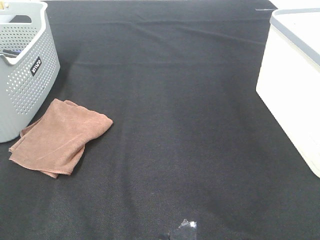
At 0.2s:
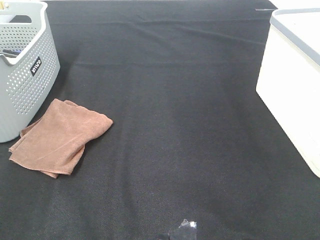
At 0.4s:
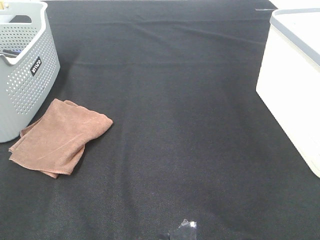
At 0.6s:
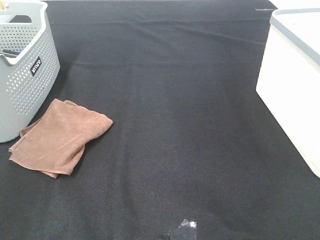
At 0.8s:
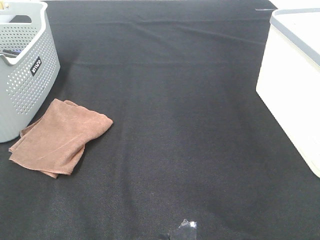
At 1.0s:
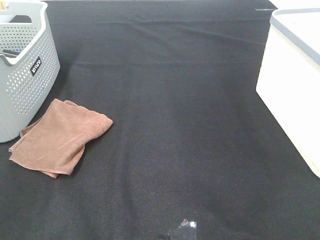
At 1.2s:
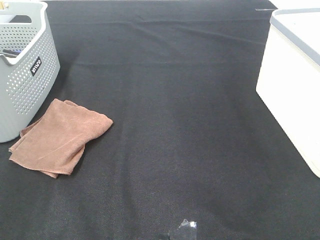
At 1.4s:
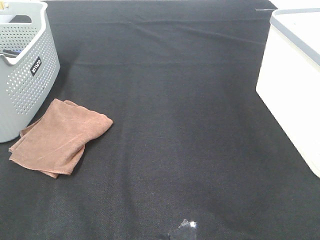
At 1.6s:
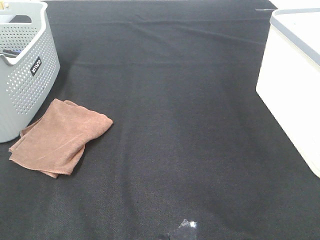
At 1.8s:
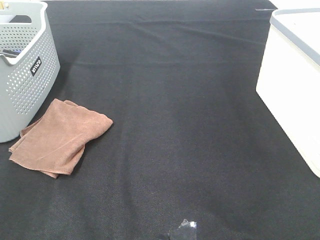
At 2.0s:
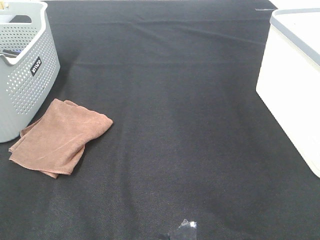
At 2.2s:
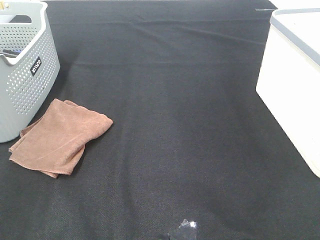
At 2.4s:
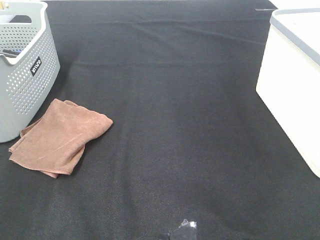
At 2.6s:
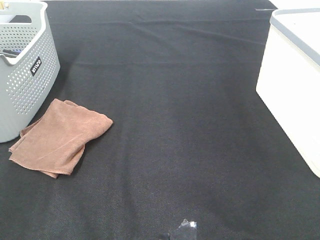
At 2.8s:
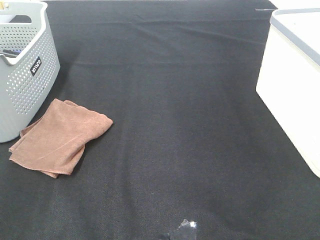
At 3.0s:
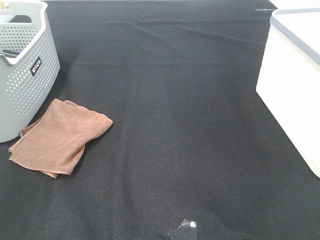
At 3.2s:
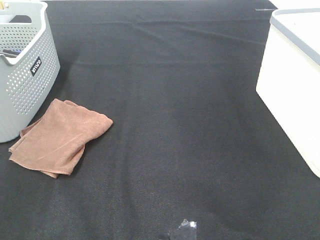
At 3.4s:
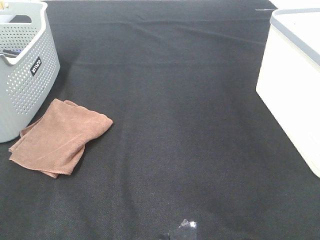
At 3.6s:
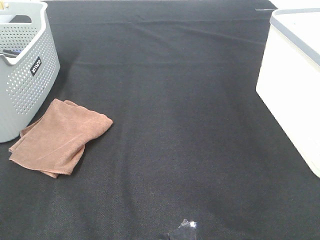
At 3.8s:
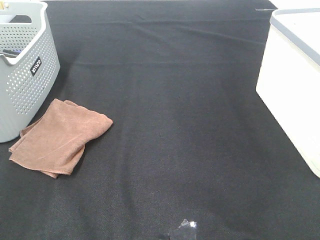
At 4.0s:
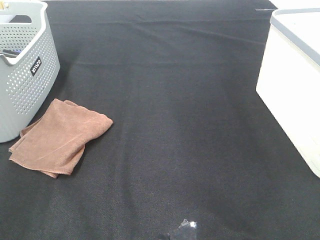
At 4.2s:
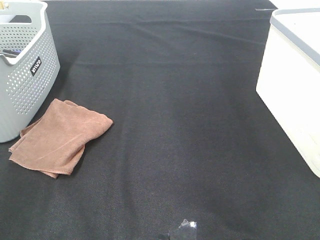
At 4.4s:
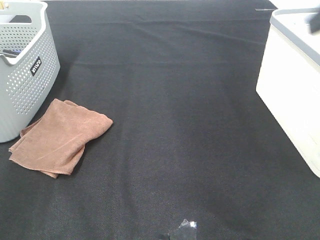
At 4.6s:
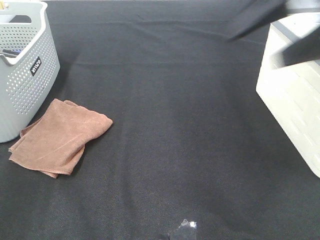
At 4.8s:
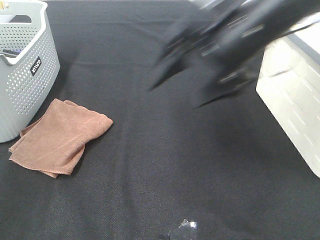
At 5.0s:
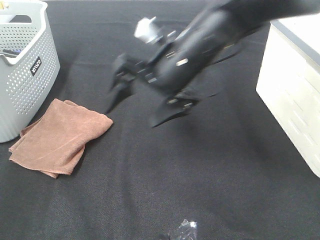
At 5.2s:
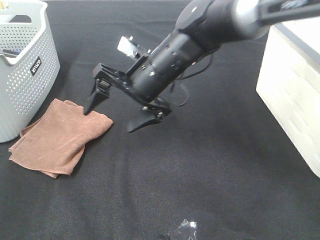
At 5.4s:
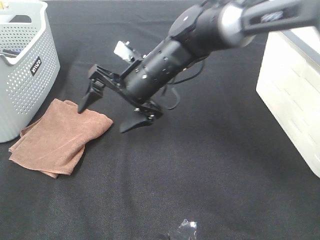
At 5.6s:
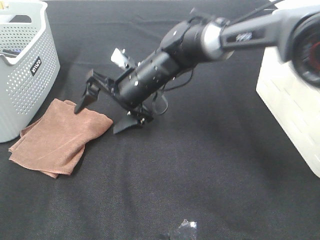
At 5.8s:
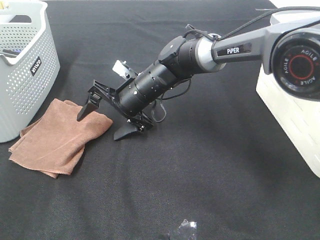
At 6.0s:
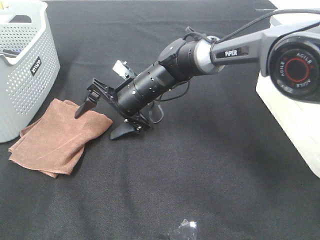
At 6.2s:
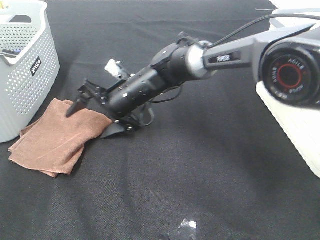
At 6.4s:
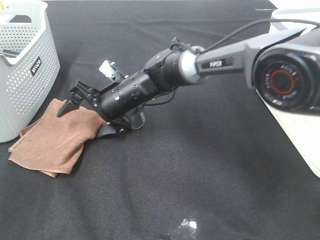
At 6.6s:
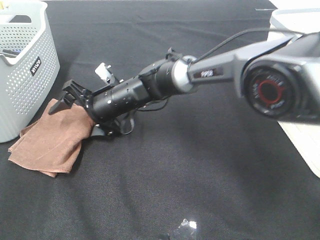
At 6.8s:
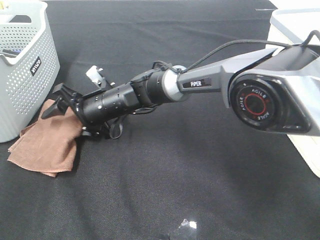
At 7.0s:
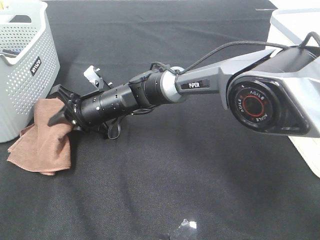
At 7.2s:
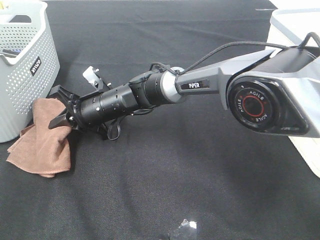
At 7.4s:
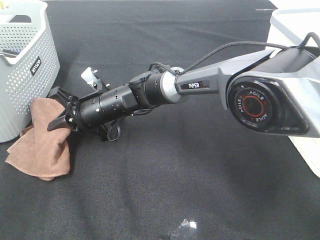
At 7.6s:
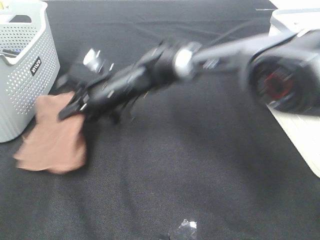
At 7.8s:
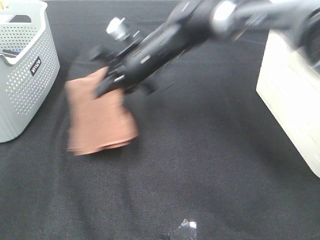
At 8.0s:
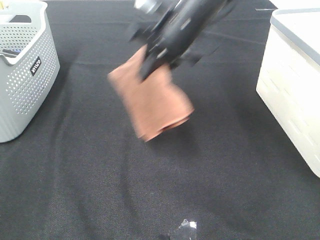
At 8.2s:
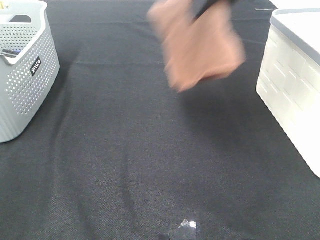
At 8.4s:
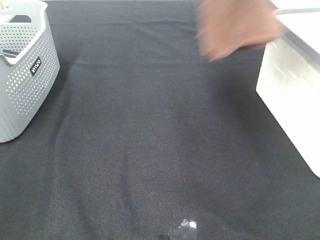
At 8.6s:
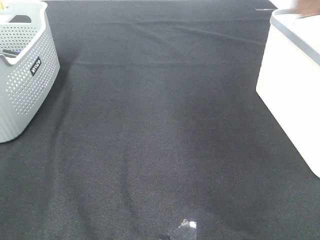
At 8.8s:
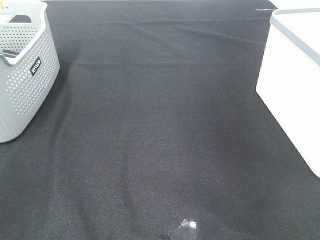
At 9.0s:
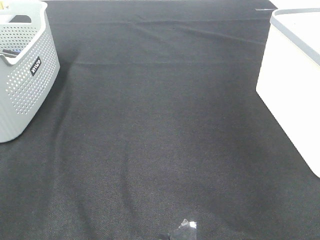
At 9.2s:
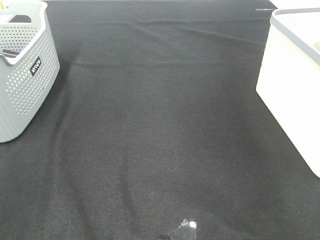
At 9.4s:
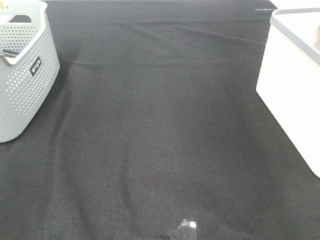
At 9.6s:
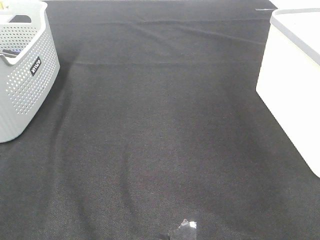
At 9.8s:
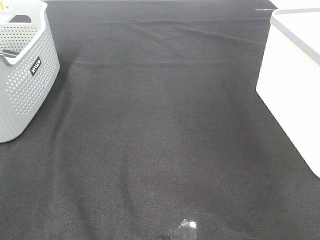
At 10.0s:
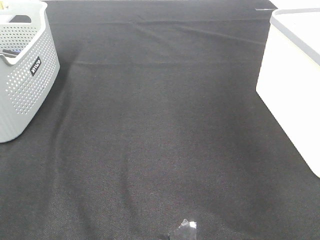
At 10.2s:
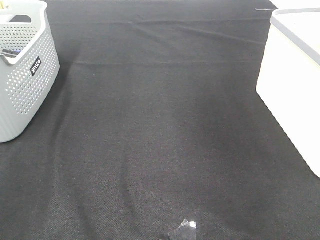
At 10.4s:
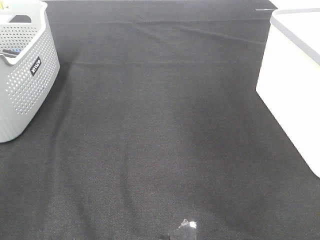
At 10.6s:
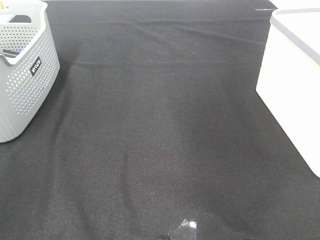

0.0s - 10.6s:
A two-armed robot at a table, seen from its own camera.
Step, 0.0s - 7.0s: Right hand: grab the folded brown towel.
Step, 7.2s - 9.4s: Right hand: place the brown towel in right basket.
0.0s - 3.0s: The two grippers keep their place.
3.0s - 4.6s: The right gripper heads forward and to the left, covering approximately 30 cm.
4.6s - 6.0s: The right gripper travels downward, to the left and forward by about 35 cm.
6.0s - 7.6s: The right gripper closes its fingers.
7.6s - 9.0s: The right gripper heads to the right and upward, covering approximately 50 cm.

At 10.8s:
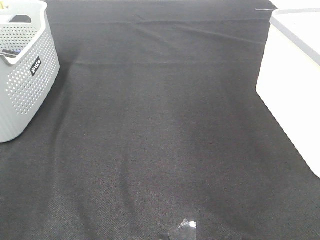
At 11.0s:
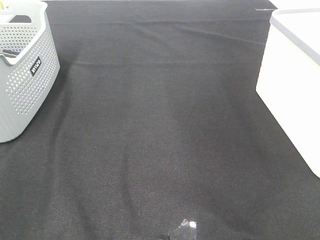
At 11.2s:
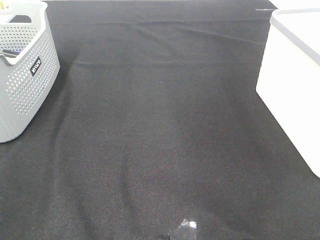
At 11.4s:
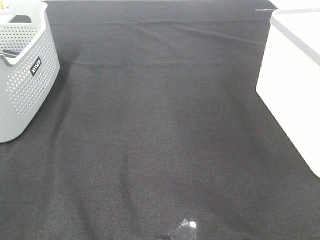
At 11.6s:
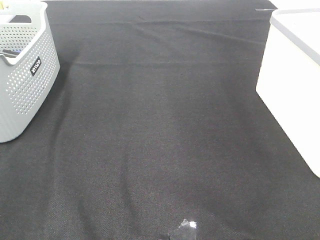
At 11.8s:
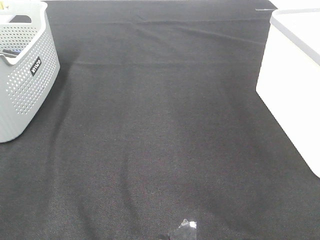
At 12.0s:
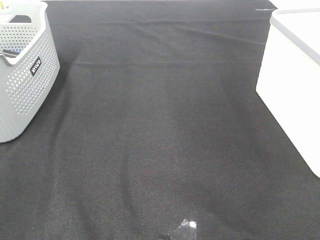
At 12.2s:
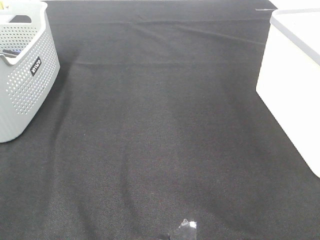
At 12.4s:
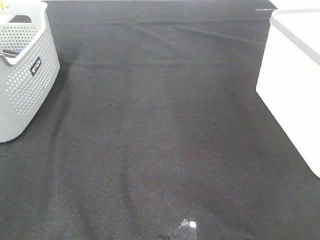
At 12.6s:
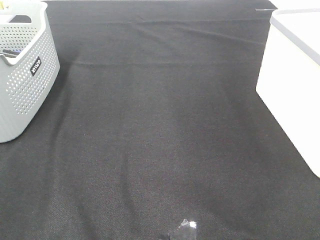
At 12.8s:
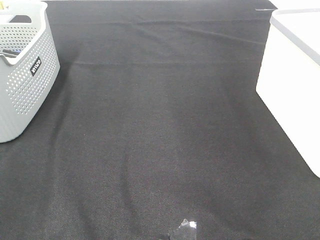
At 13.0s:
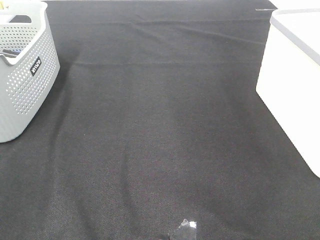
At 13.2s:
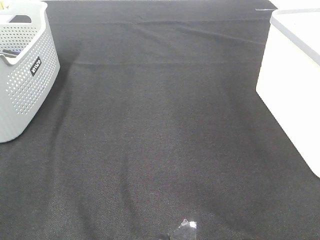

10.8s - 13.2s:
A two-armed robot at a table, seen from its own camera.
12.0s - 13.2s: The two grippers keep their place.

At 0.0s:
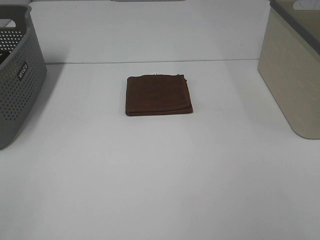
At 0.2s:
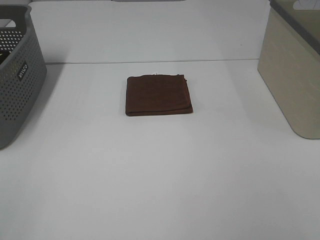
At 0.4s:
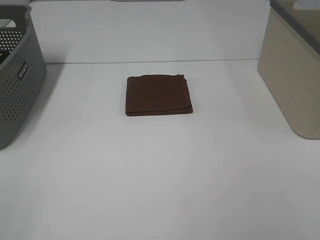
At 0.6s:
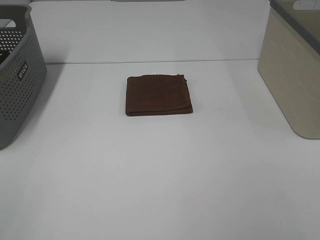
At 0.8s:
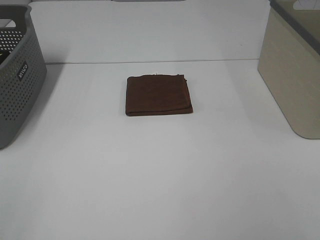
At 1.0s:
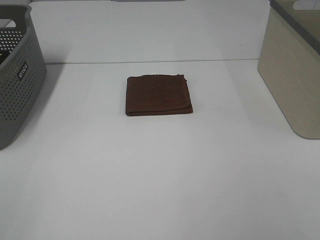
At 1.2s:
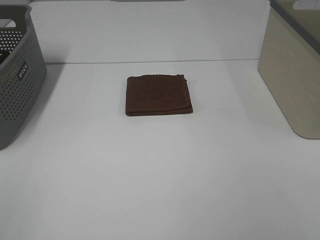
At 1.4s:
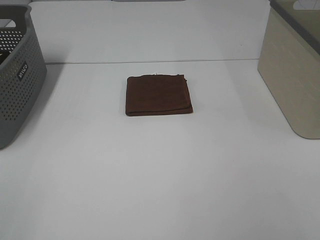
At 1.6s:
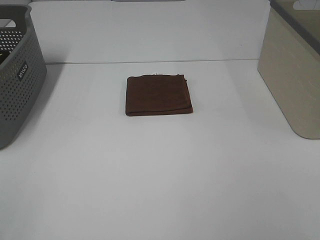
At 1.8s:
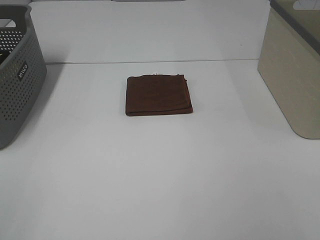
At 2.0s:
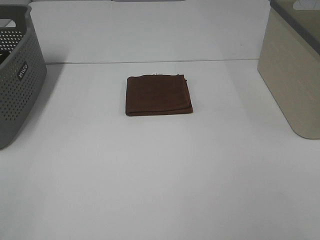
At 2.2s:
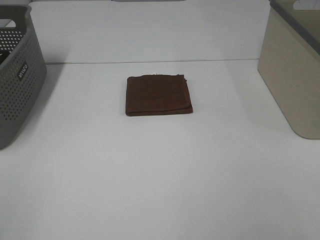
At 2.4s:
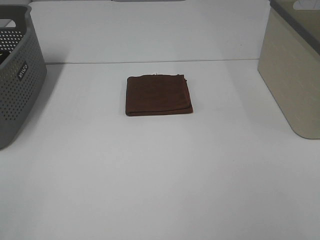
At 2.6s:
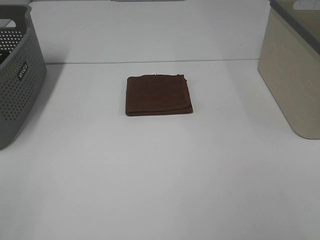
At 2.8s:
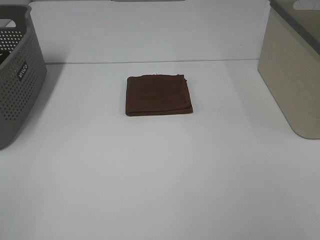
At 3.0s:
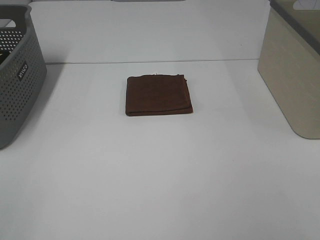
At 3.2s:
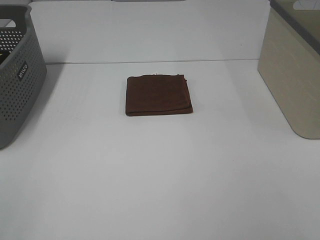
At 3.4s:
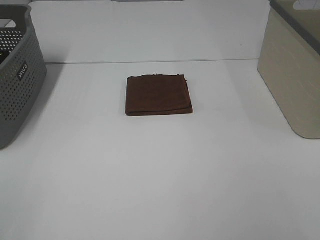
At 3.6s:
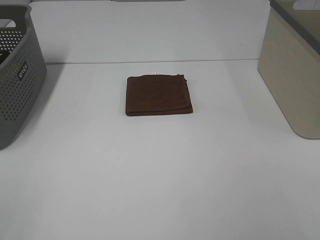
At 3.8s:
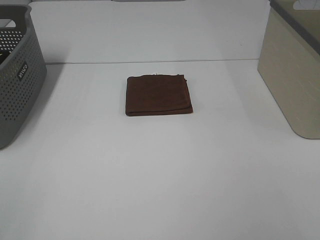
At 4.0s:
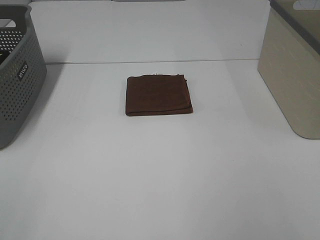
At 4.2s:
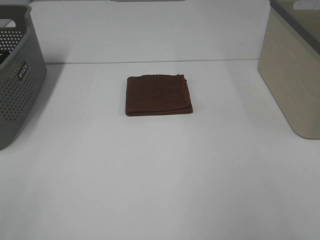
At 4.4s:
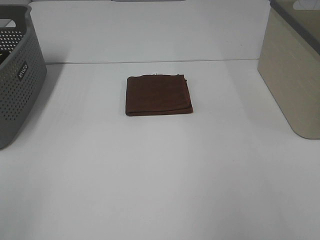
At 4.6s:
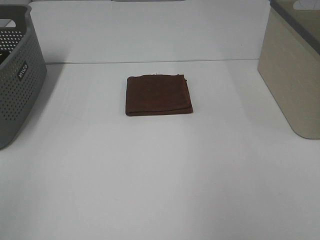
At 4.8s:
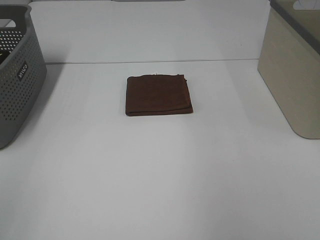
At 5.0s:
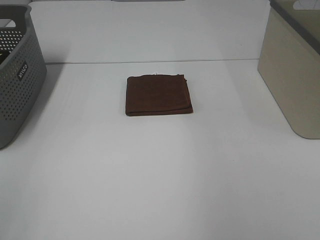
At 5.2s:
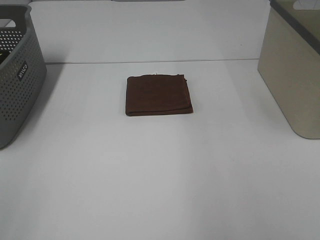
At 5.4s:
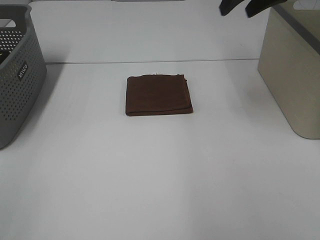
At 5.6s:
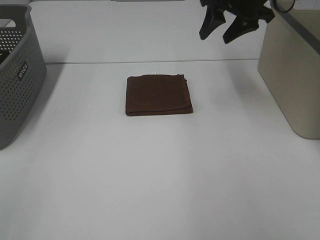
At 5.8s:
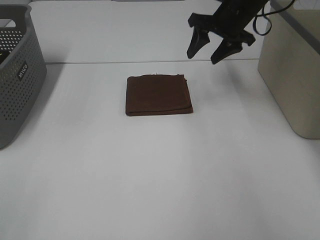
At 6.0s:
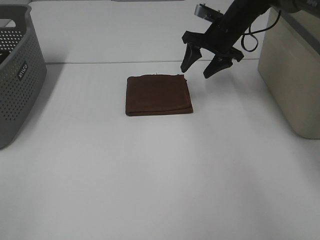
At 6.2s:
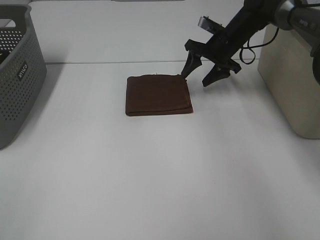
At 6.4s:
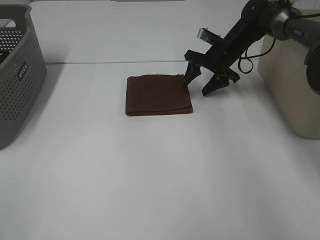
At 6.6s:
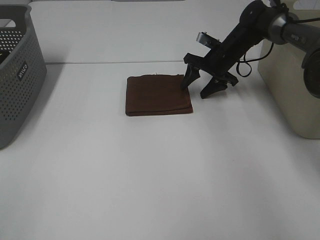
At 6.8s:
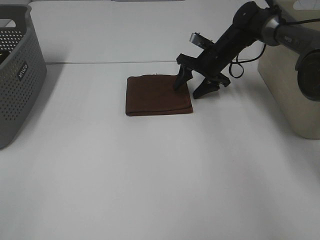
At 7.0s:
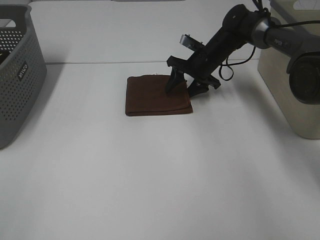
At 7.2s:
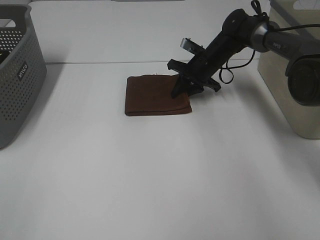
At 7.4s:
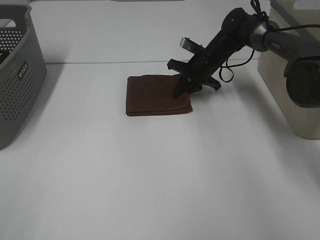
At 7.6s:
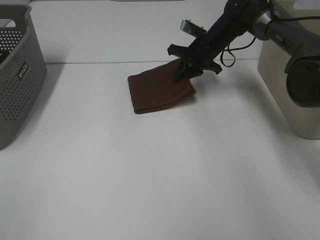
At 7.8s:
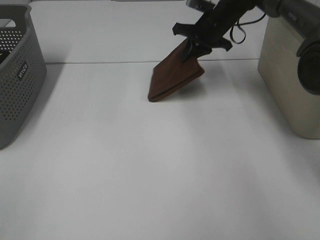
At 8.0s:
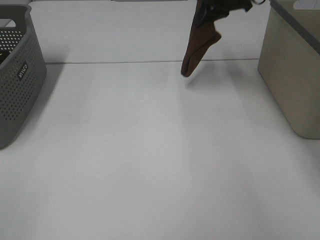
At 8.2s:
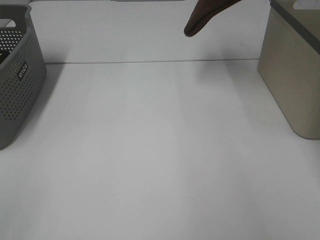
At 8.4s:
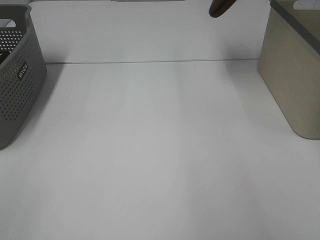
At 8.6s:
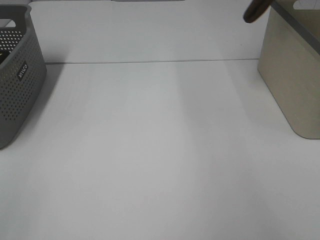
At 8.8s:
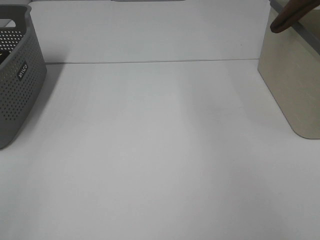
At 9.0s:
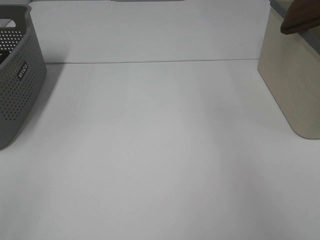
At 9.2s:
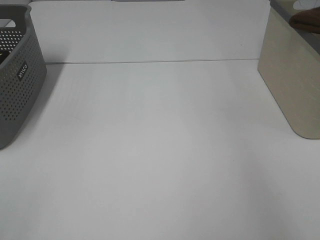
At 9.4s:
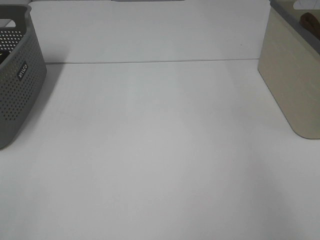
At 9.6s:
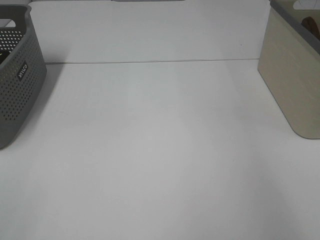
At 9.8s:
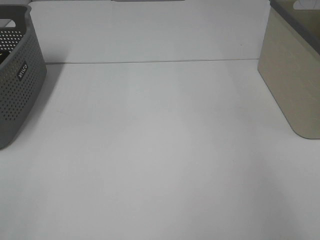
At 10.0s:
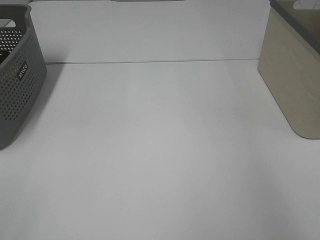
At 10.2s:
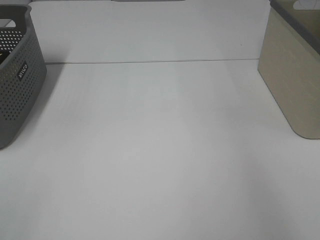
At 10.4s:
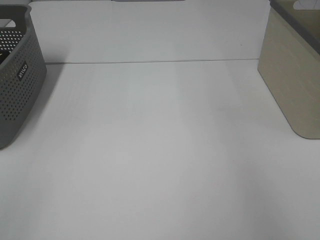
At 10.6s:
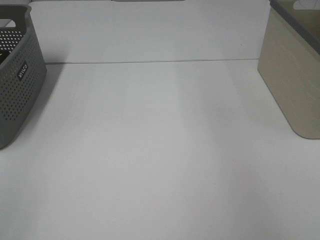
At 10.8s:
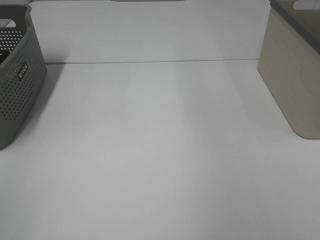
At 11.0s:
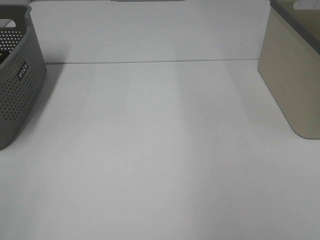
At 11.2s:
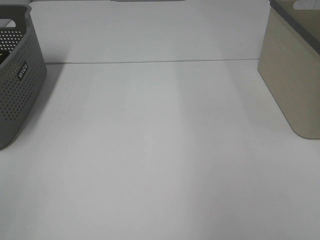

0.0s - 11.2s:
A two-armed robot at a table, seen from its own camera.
Step, 0.0s - 7.4s: Right hand: grab the folded brown towel.
Step, 7.6s - 10.0s: Right hand: place the brown towel in right basket.
0.0s - 3.2s: Neither gripper changes place.
4.8s - 6.4s: The right gripper moves downward, forward and to the left, about 40 cm.
6.4s - 8.0s: The right gripper heads upward, covering approximately 20 cm, and closes up.
8.0s - 9.6s: The right gripper moves to the right, about 25 cm.
